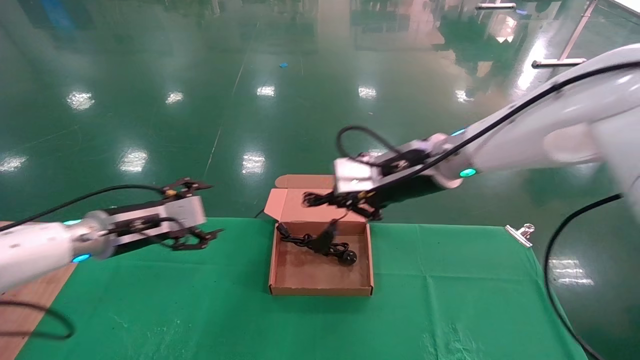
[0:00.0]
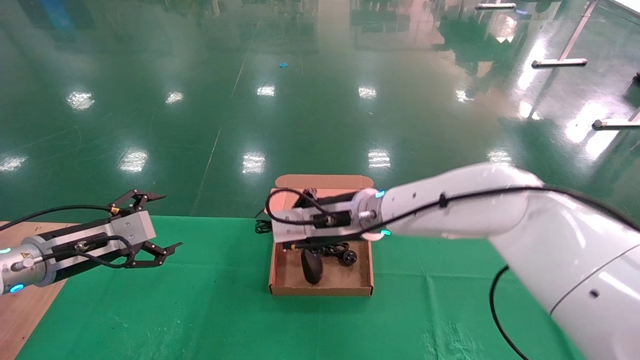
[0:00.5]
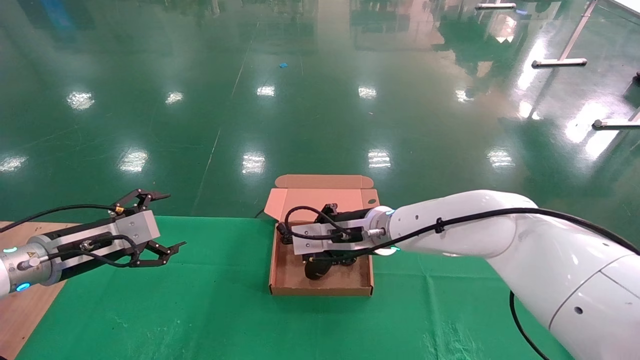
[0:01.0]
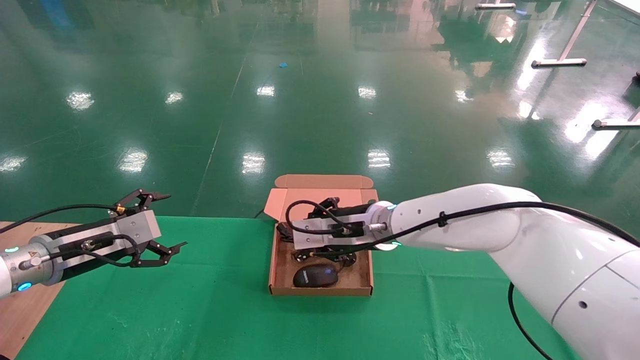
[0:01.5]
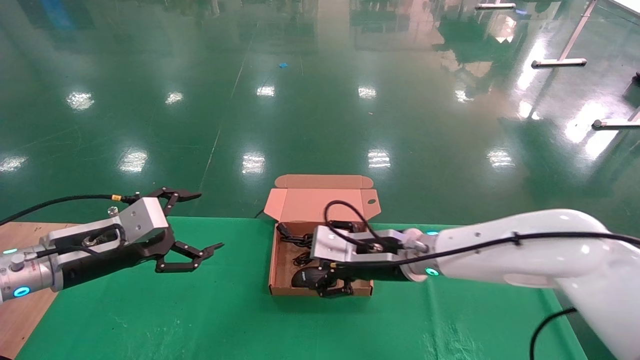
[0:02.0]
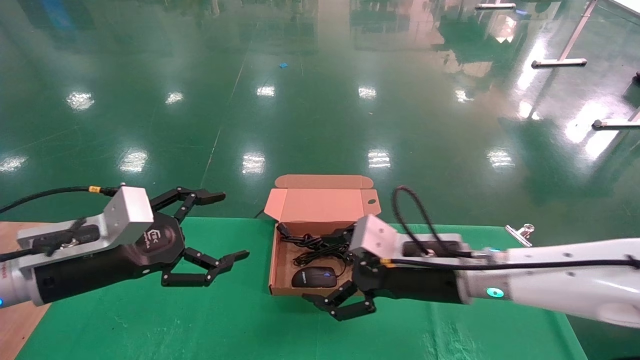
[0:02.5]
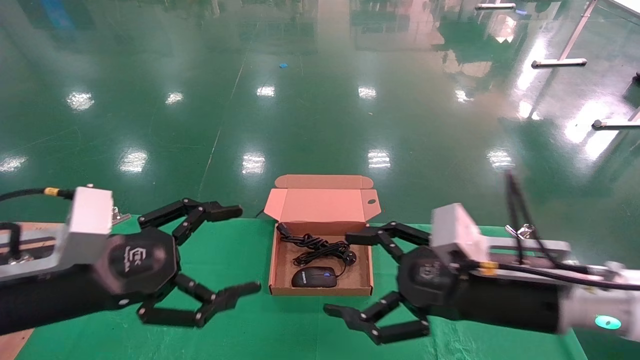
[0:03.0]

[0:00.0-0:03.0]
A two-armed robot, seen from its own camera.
Step, 0:00.0 to 0:02.5: Place the mouse and power cord into the box.
0:00.0 to 0:01.5: The left gripper moves to the left, roughly 5 cm; the right gripper goes approximately 10 cm downward and to the left.
0:01.5 to 0:03.0: The two grippers go about 20 cm backward and to the right. The right gripper opens up.

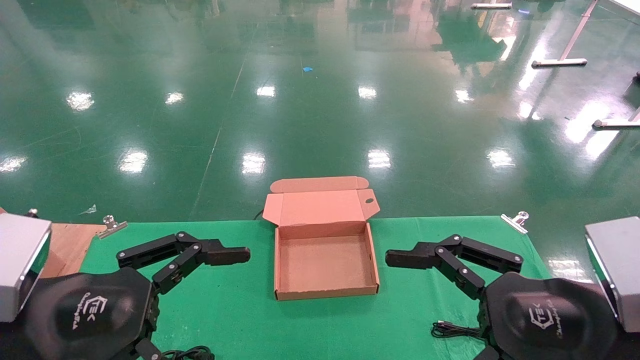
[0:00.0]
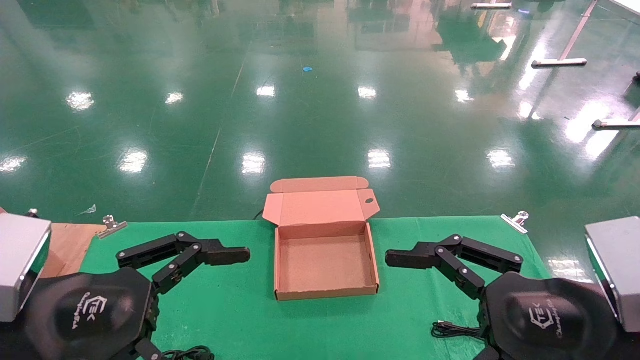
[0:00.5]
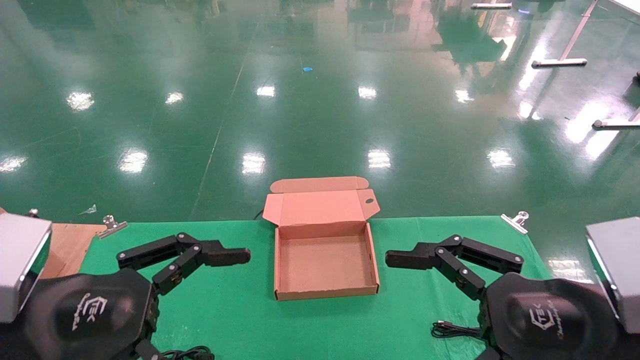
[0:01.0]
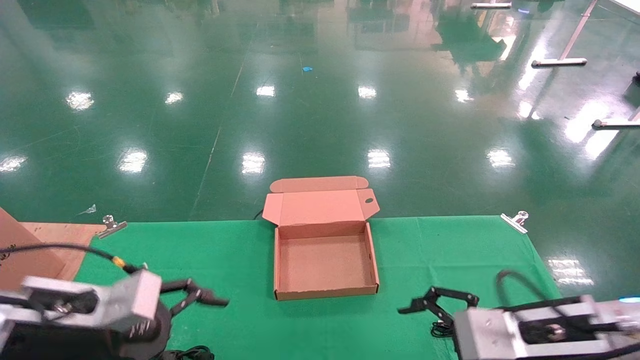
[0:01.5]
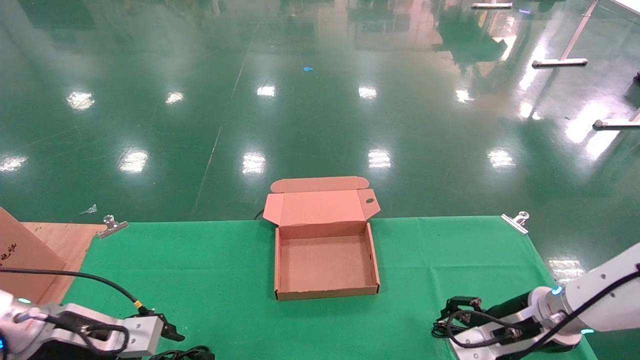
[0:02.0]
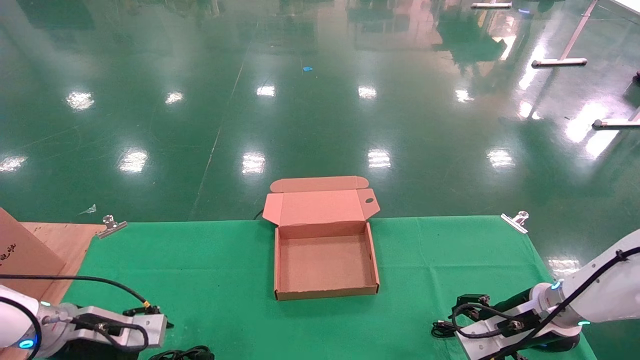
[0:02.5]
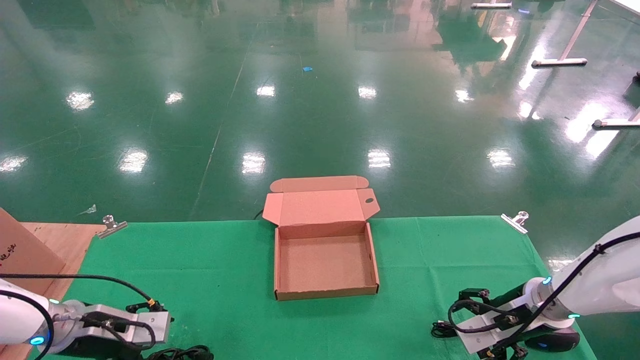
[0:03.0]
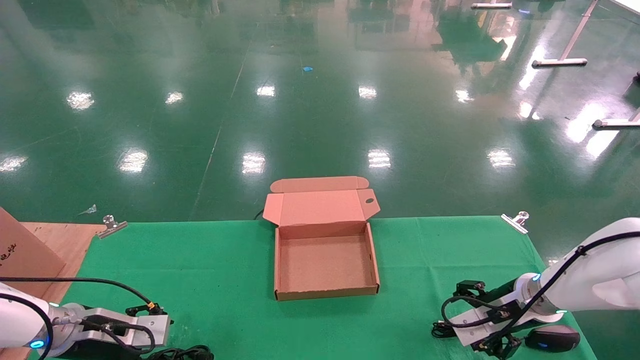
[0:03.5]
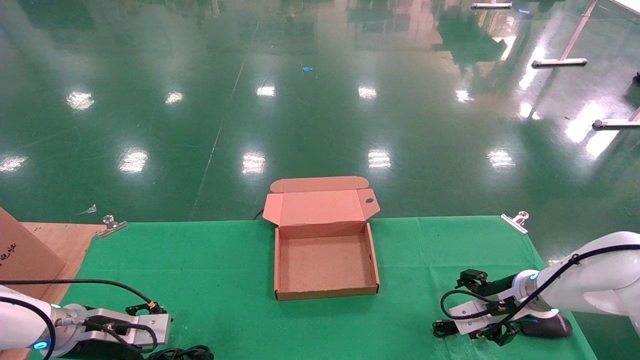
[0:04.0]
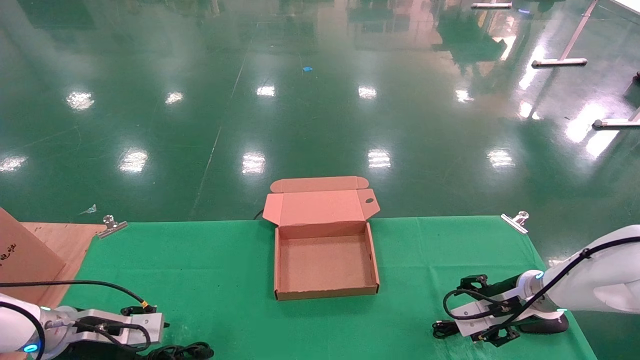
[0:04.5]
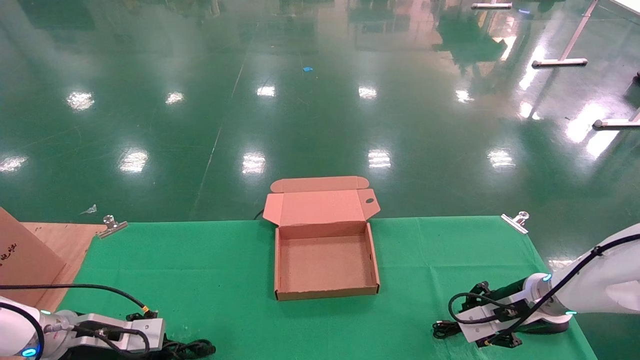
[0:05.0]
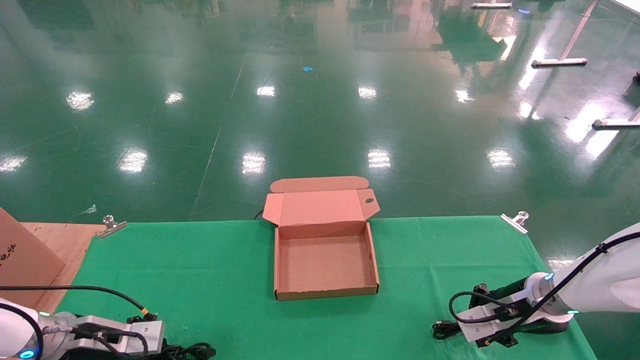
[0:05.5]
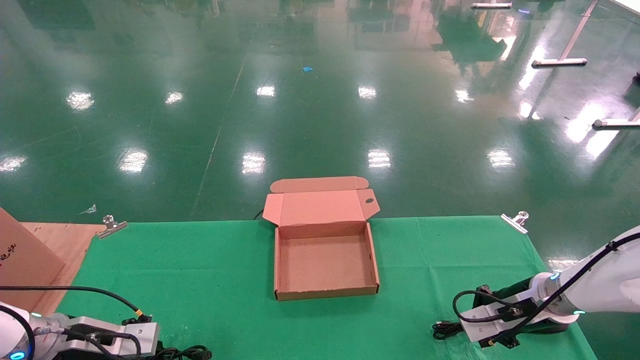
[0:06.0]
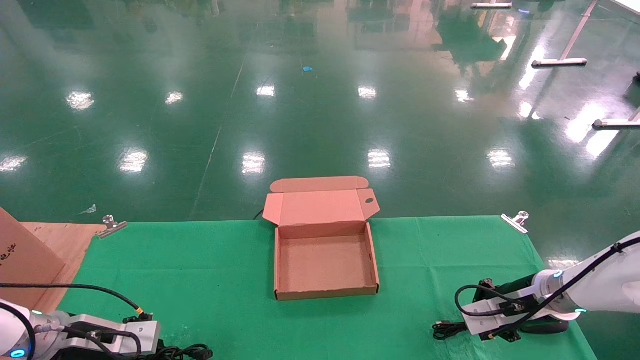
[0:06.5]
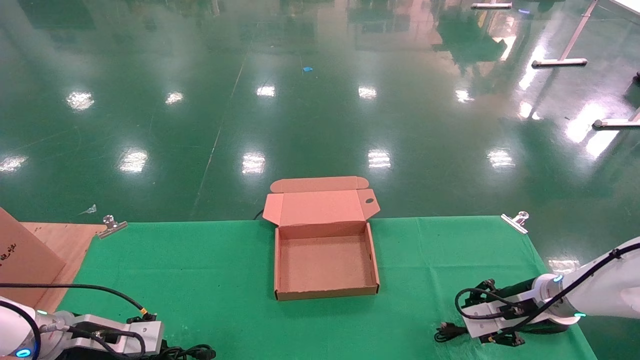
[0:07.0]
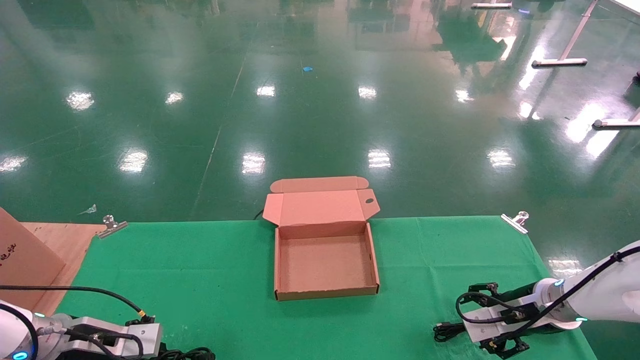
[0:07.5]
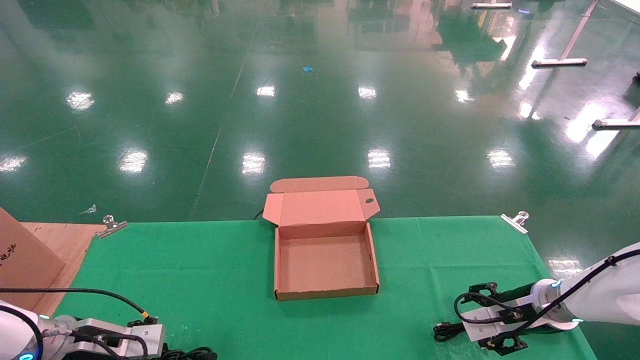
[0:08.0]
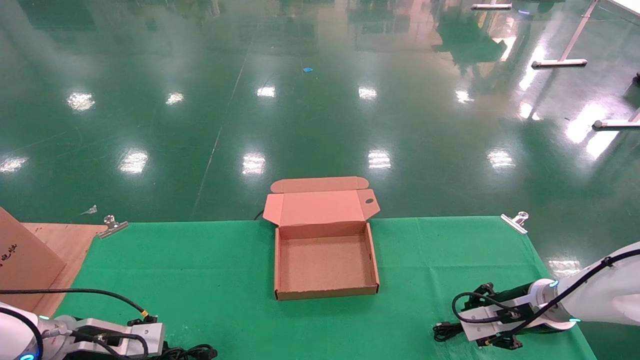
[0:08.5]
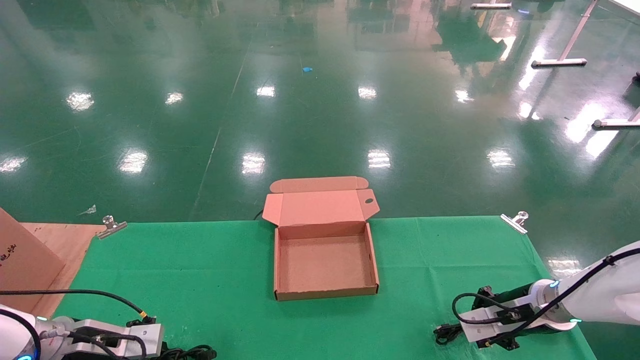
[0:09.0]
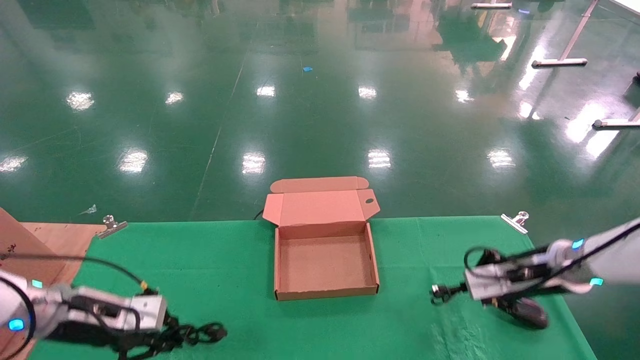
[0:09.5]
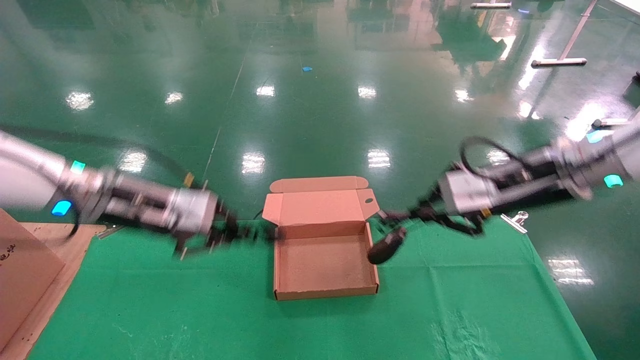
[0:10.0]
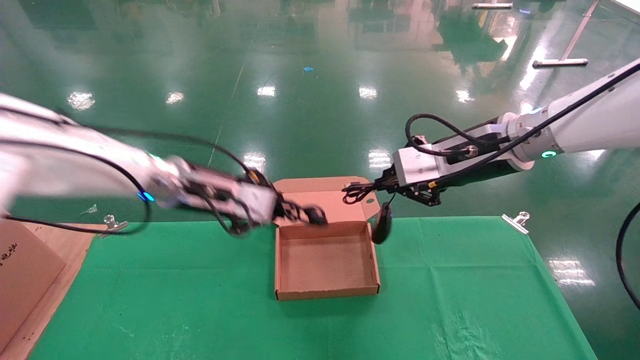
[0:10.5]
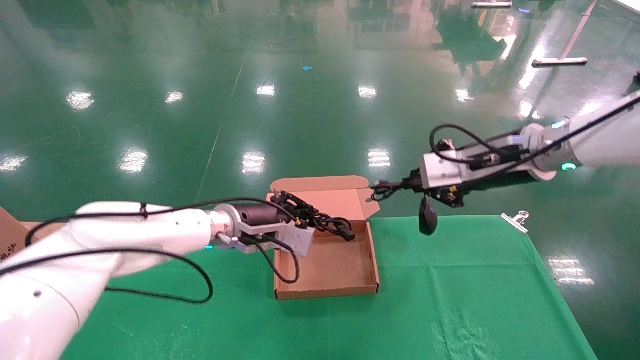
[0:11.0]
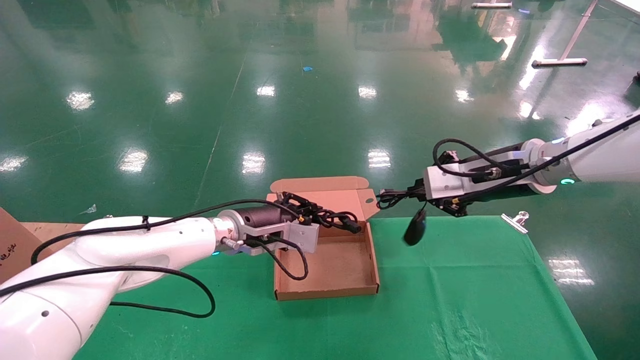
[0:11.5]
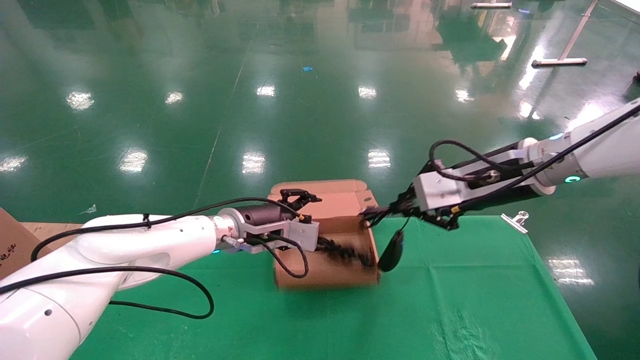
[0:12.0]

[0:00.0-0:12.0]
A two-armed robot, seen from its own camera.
Step, 0:02.0 to 0:09.5: Grab and lift both the mouse and power cord from the accessory packaging area at the same time.
0:00.0 to 0:02.0: The left gripper shifts roughly 20 cm forward, downward and to the left, while the right gripper goes some 20 cm forward and downward.
0:02.0 to 0:04.0: The two grippers go approximately 5 cm forward.
0:04.0 to 0:06.0: The left gripper closes its fingers, while the right gripper closes its fingers.
0:06.0 to 0:08.0: The right gripper opens up.
0:08.0 to 0:10.0: The right gripper is displaced upward by approximately 20 cm, and closes its fingers. Meanwhile the left gripper shifts approximately 25 cm upward and to the right.
0:10.0 to 0:12.0: The left gripper shifts about 15 cm to the right, forward and downward.

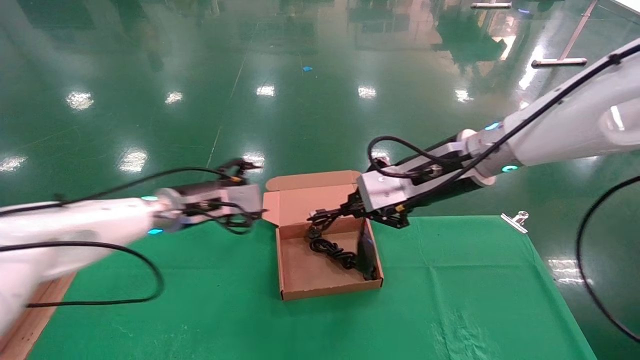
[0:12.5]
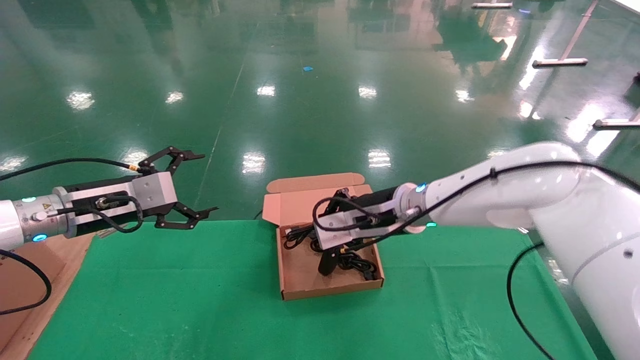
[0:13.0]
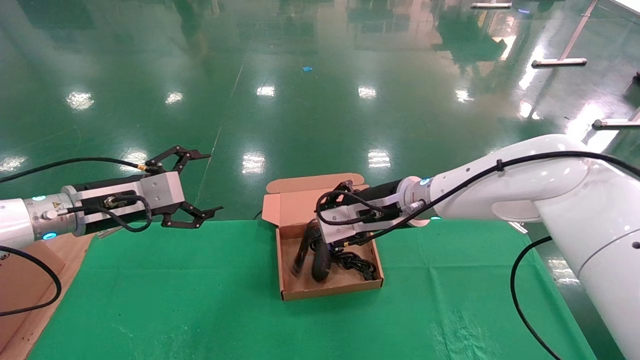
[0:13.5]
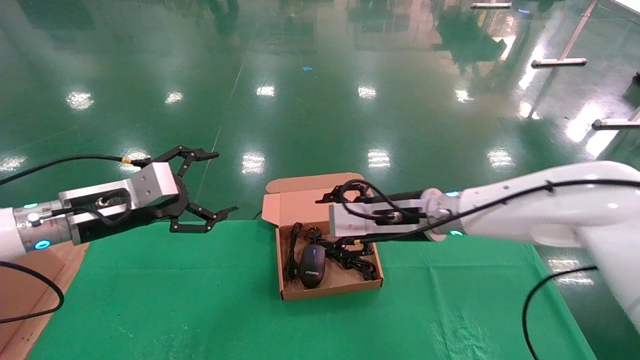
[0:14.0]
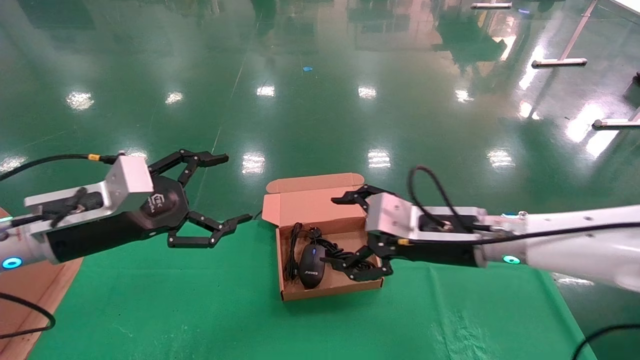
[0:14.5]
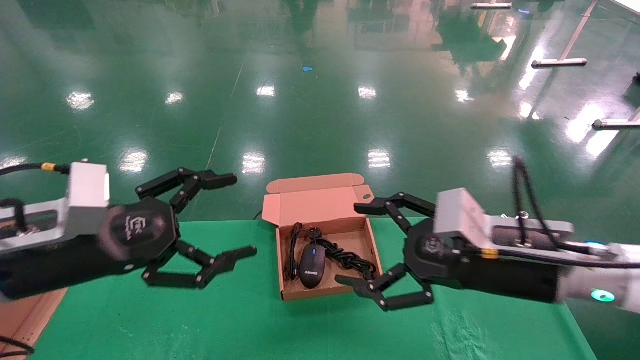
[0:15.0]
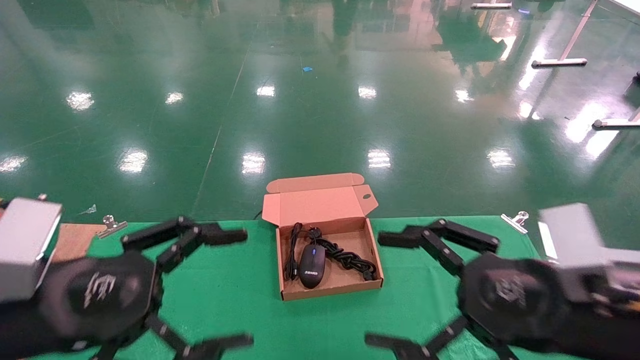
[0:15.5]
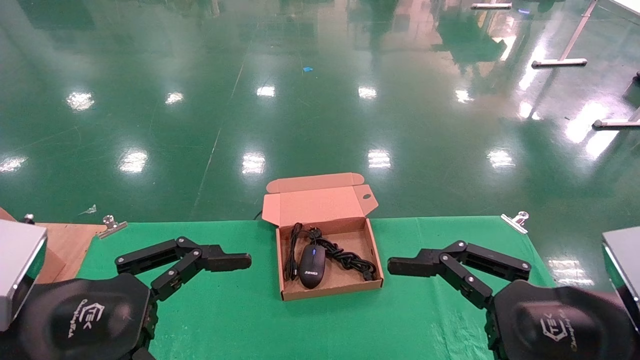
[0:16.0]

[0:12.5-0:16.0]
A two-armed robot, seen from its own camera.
Step, 0:12.5 to 0:14.5: Place the mouse and power cord into the box.
0:12.5 to 0:14.5: The right gripper heads downward, covering about 10 cm, and opens; the left gripper goes some 15 cm backward and to the left.
0:14.5 to 0:16.0: The right gripper shifts about 20 cm backward and to the right. The left gripper travels backward by approximately 15 cm.
